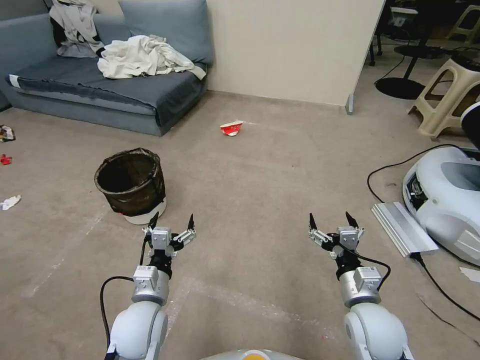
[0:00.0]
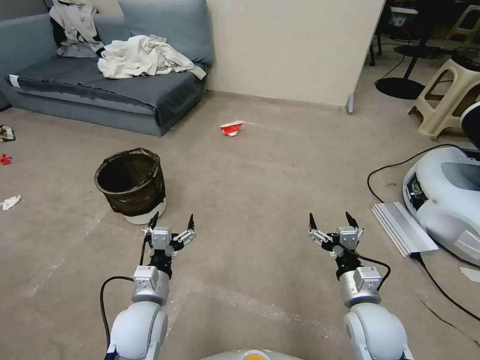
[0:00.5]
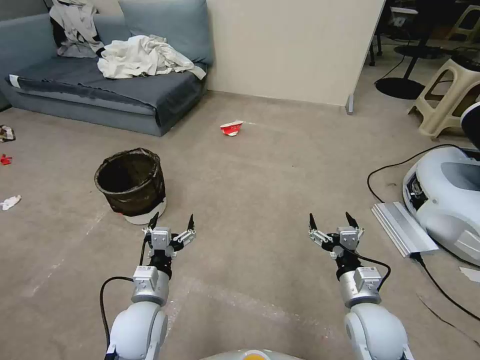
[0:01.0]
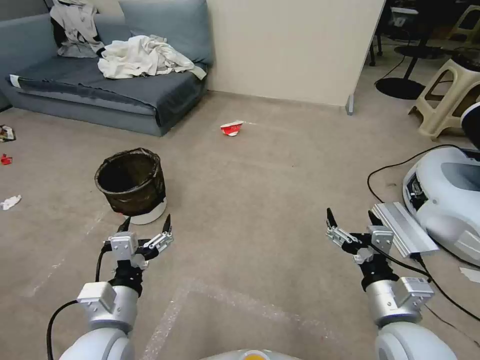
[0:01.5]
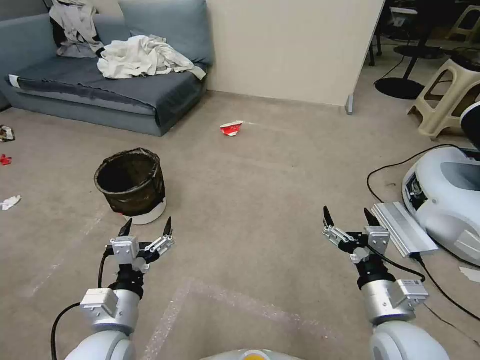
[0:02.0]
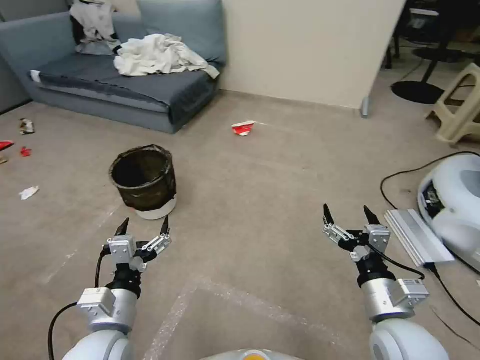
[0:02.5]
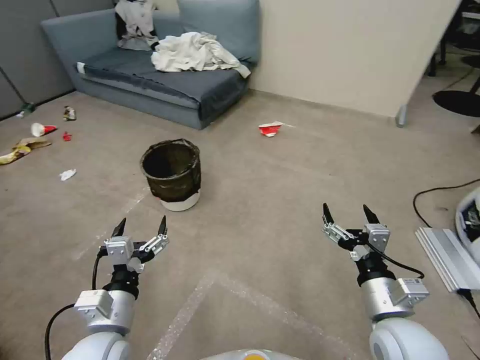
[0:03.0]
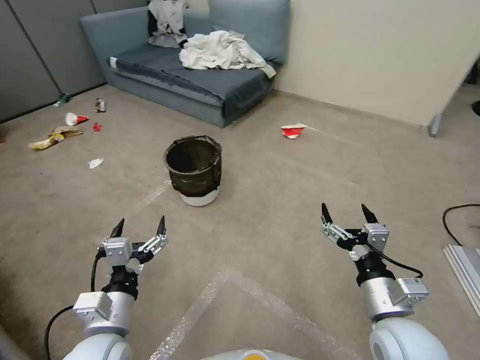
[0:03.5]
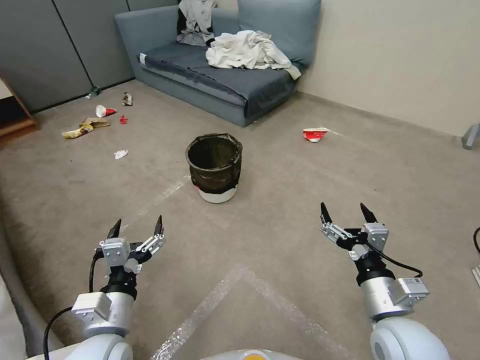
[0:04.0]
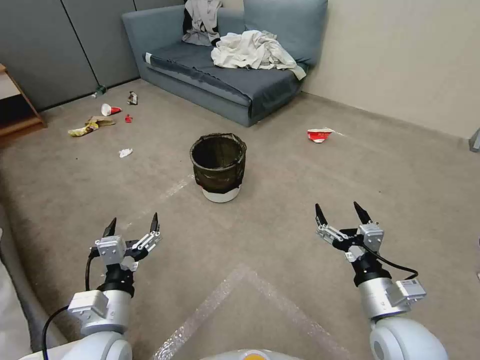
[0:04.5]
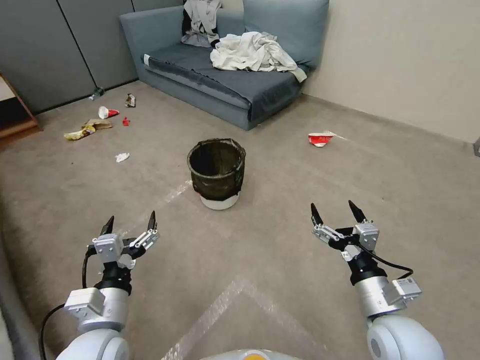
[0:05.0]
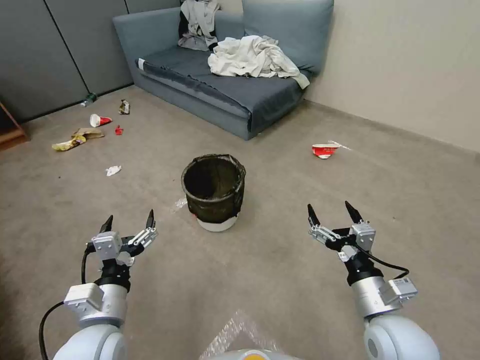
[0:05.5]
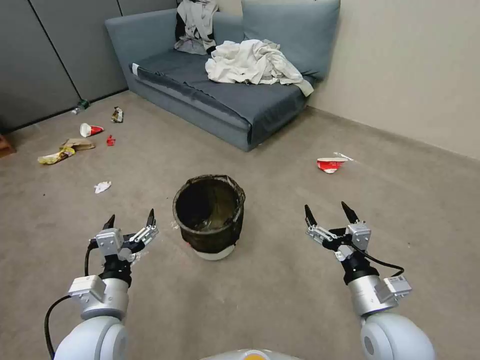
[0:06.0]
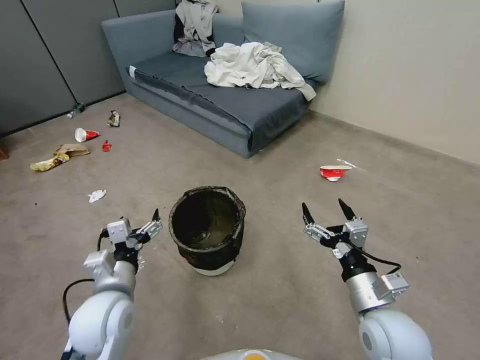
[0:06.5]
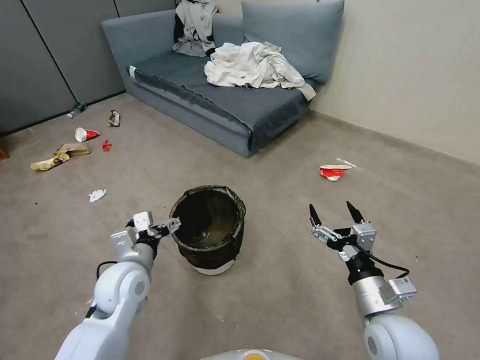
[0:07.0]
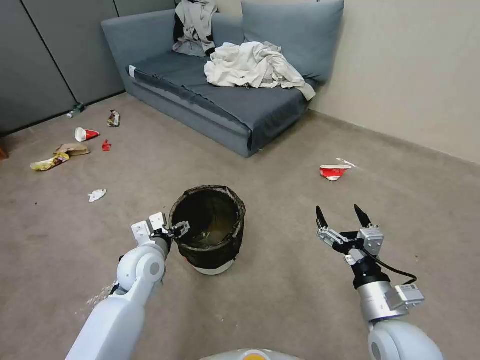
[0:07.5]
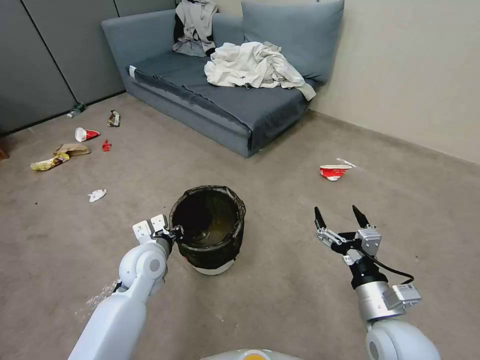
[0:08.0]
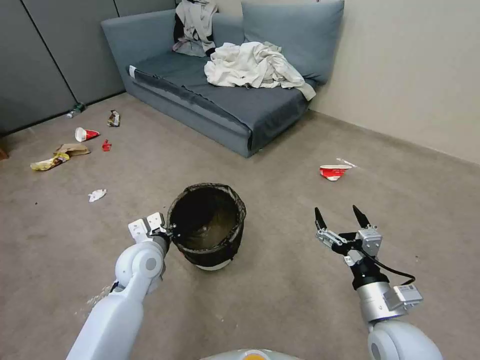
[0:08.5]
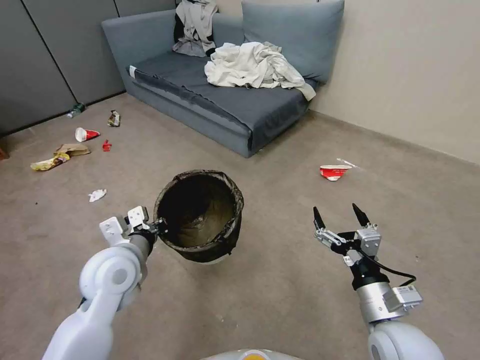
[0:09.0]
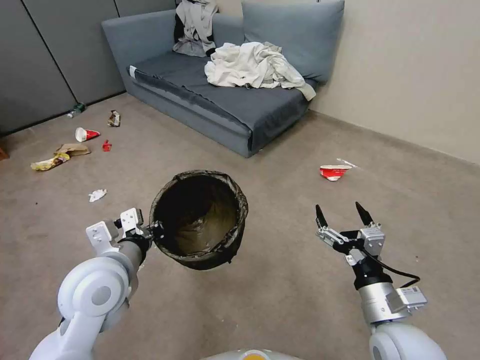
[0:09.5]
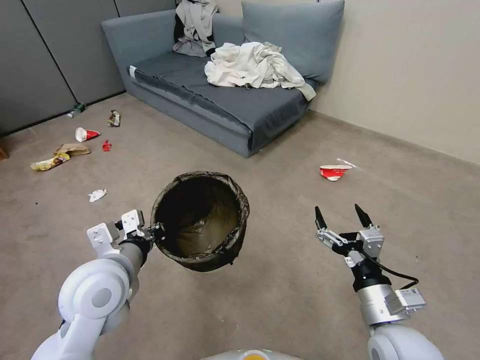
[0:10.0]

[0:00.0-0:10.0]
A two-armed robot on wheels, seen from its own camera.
Task of the whole recording: Pick up the trash can from the floor.
0:06.0 to 0:08.0: The left gripper heads forward, covering about 15 cm, and closes.
0:08.0 to 0:10.0: The left gripper moves upward and backward, approximately 15 cm.

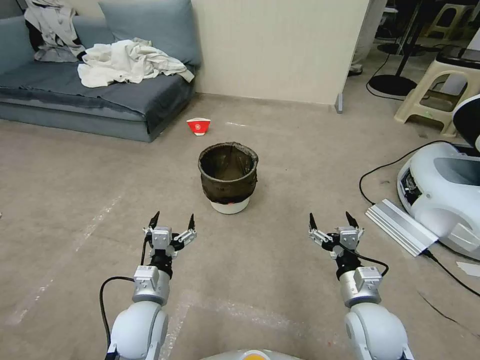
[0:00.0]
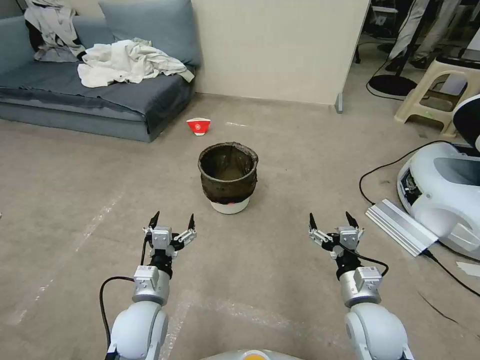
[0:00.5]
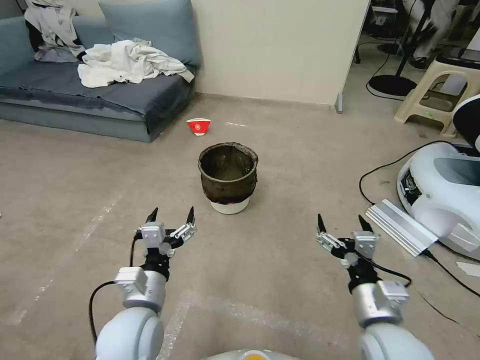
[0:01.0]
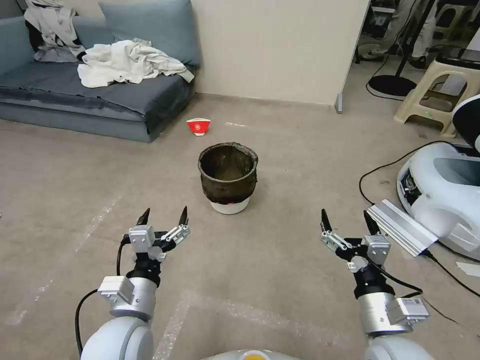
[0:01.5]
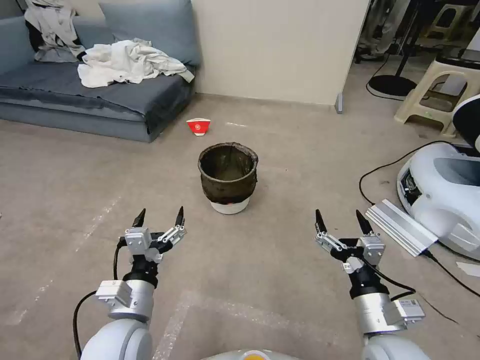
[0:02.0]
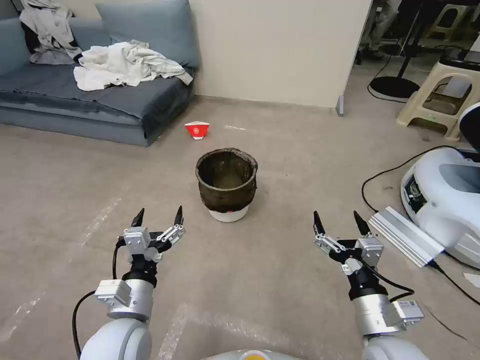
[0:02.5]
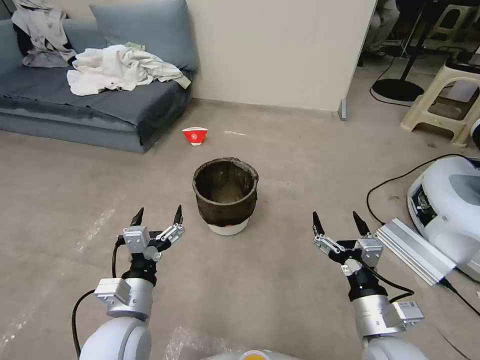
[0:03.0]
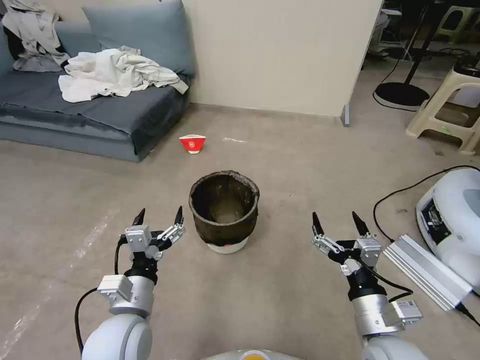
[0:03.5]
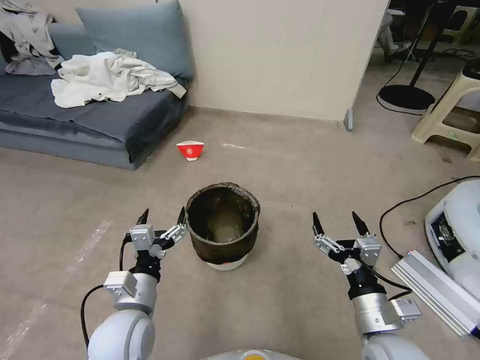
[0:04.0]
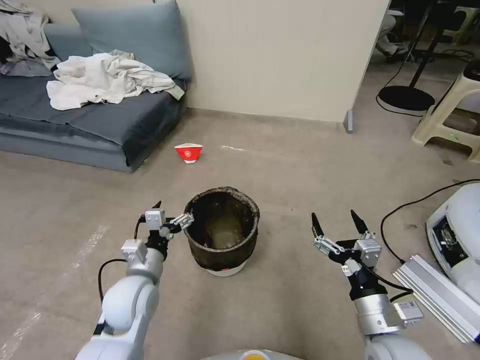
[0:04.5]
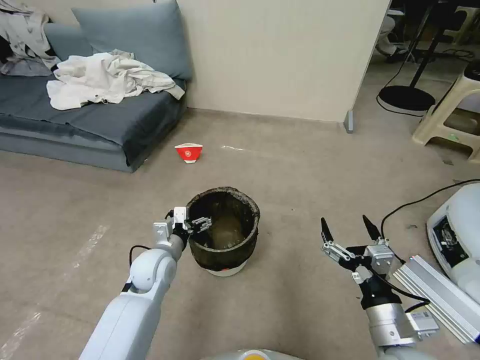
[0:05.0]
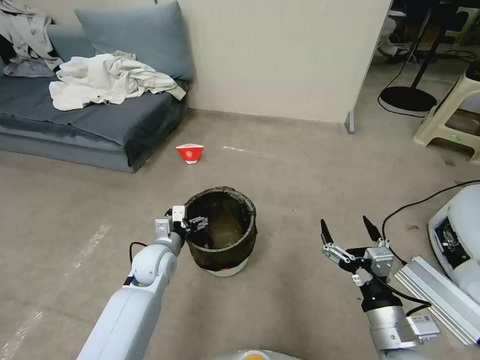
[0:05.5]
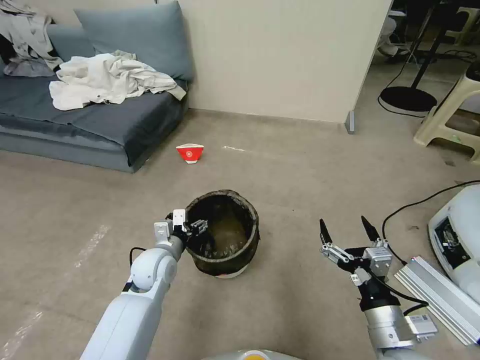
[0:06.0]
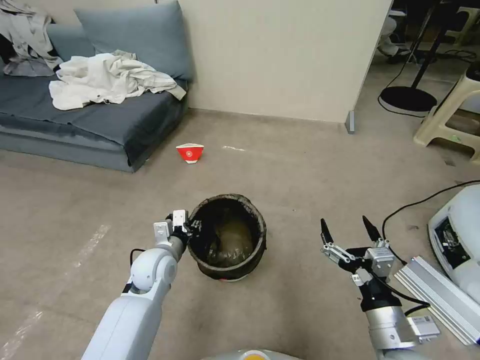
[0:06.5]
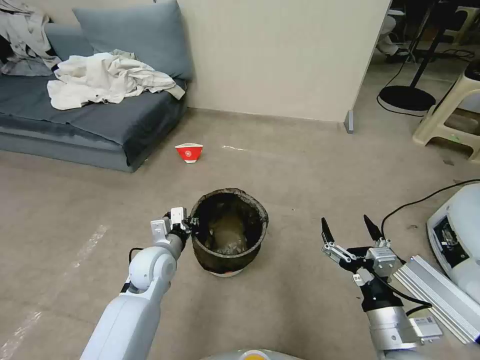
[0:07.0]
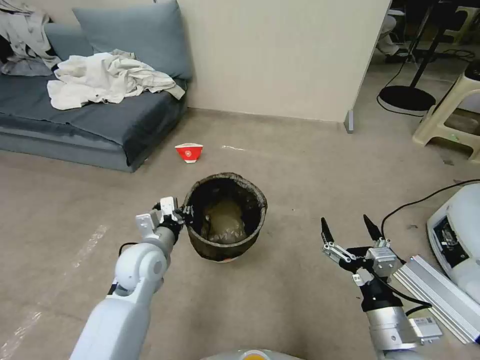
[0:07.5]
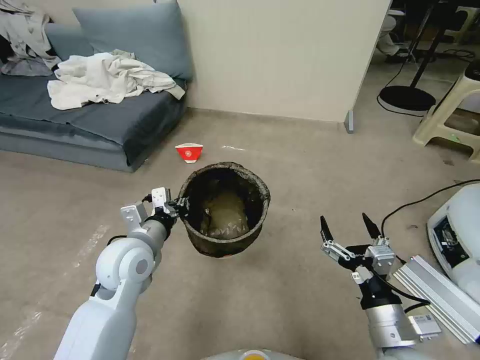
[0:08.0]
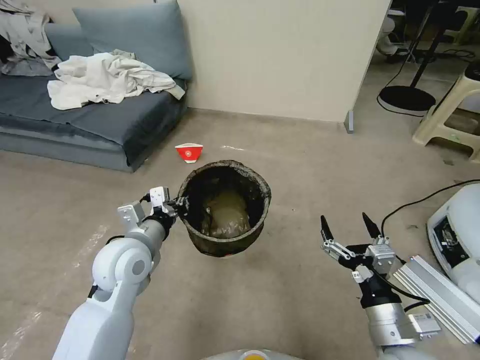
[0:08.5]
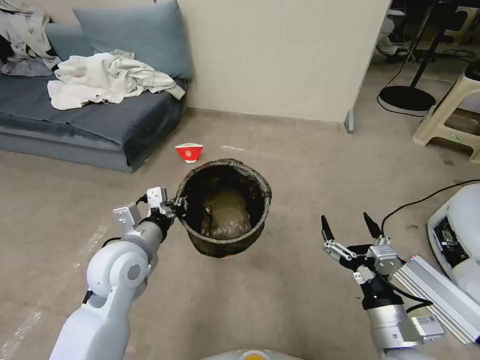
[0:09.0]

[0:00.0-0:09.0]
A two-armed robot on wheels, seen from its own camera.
Task of the whole recording: Pick up the trash can from the floor.
0:02.0 to 0:04.5: The left gripper shifts about 10 cm forward.
0:04.5 to 0:07.0: The left gripper goes about 10 cm forward, and closes.
0:07.0 to 0:09.0: The left gripper moves upward, some 10 cm.

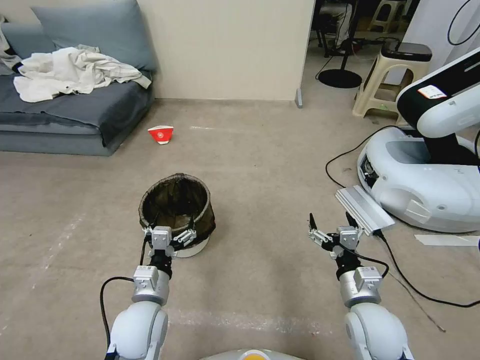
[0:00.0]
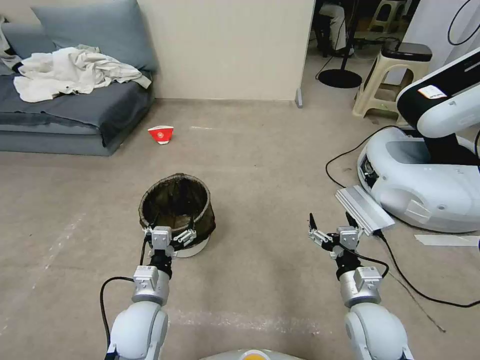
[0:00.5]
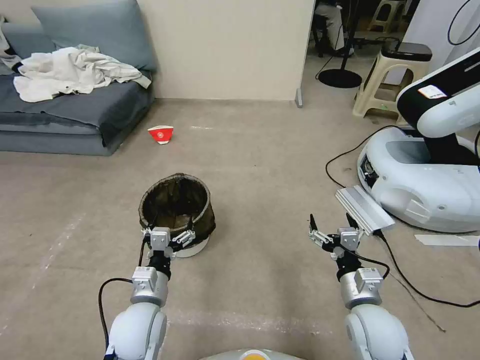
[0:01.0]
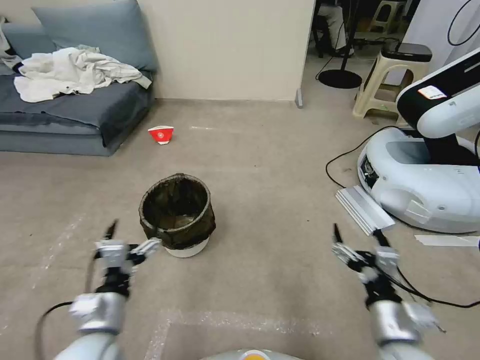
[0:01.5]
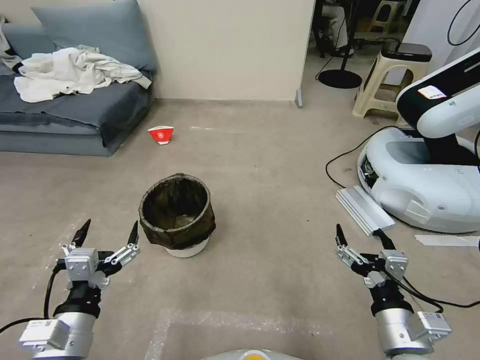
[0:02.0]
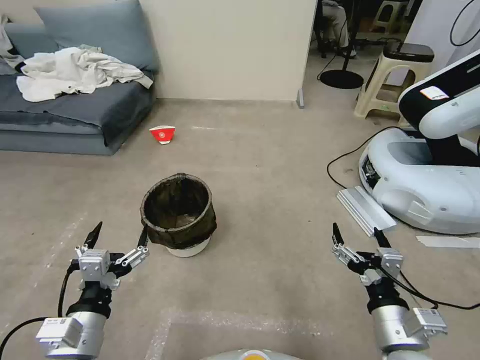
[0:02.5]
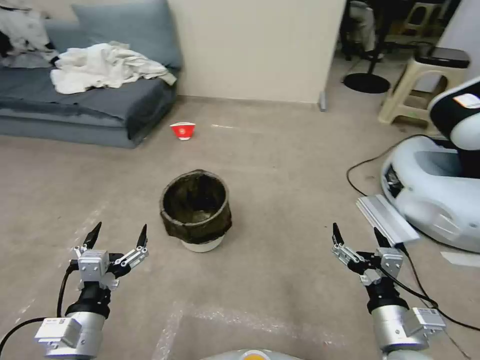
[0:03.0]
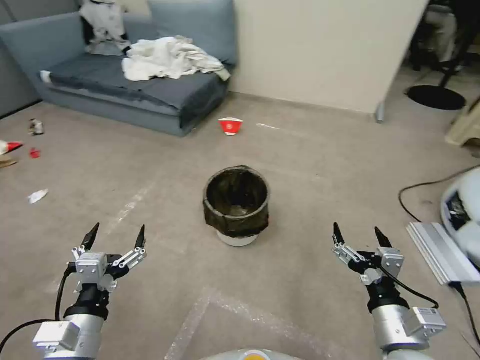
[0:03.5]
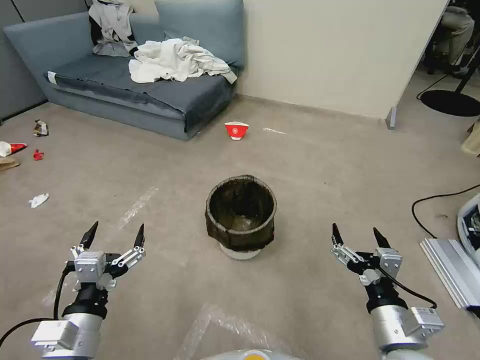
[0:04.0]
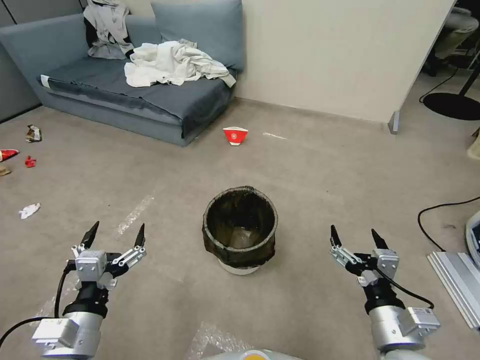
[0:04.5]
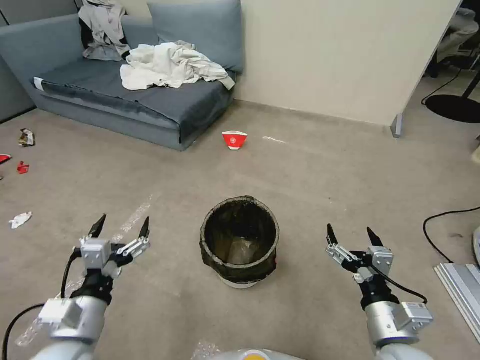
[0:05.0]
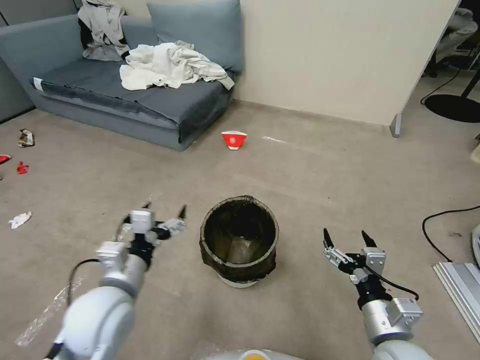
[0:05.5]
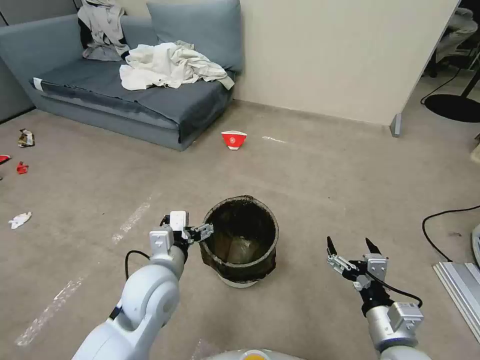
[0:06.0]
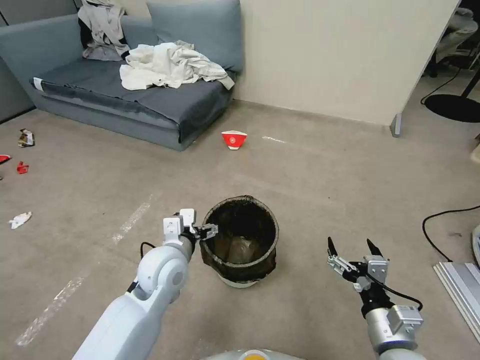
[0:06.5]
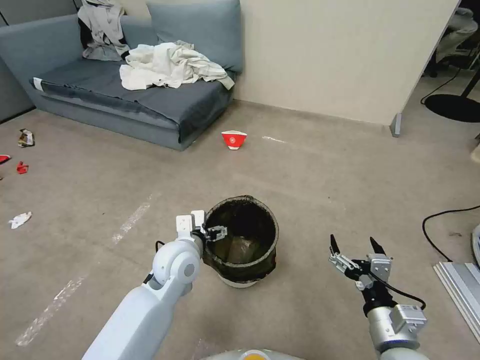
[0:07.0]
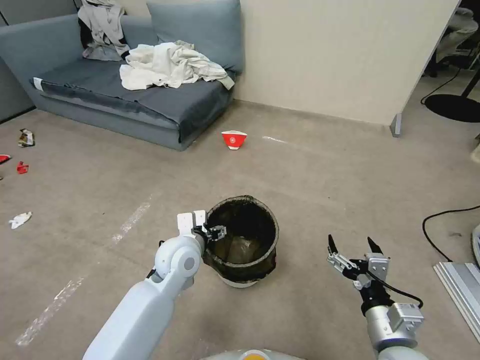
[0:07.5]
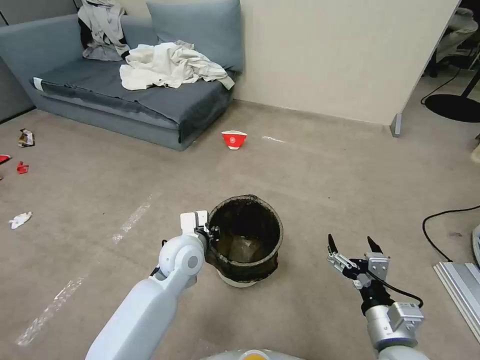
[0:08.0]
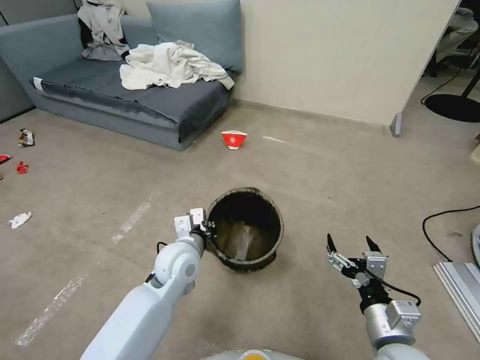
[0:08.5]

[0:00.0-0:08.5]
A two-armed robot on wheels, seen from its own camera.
Task of the whole recording: Pick up the trash can from the floor.
0:04.0 to 0:06.5: The left gripper moves forward and to the right, some 20 cm.
0:06.5 to 0:08.5: The left gripper closes.
